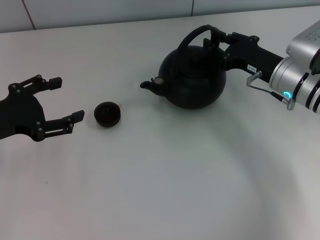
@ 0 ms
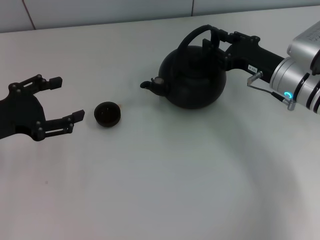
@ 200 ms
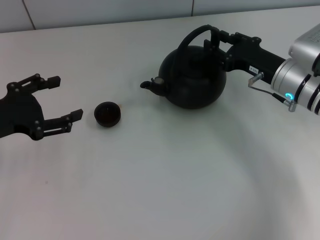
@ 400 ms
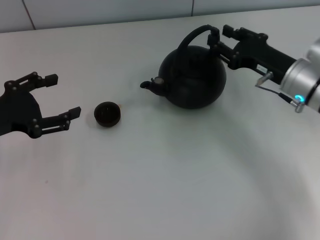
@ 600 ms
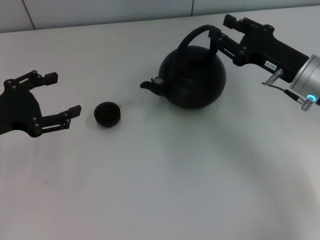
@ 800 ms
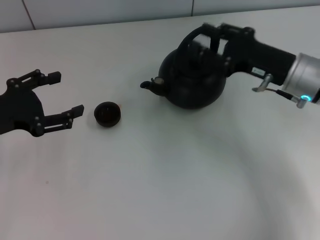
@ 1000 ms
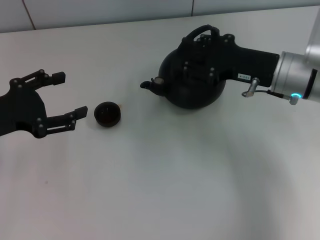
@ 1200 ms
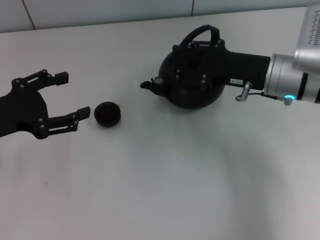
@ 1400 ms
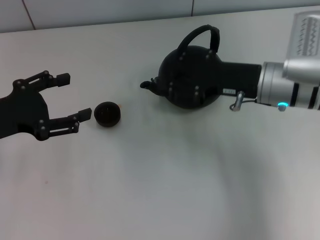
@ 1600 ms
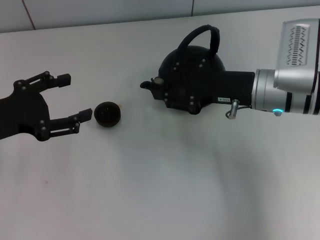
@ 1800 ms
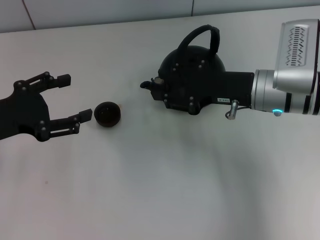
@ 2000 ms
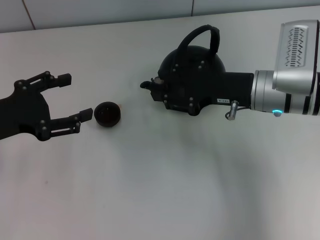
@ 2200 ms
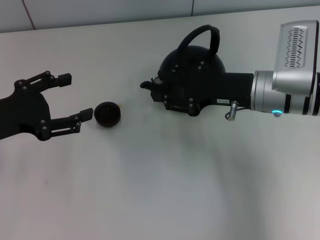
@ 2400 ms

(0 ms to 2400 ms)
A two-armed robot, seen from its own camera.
Task of the whole recording: Grasp the handle of the teapot with one hand and pour tea into the teacup.
0 ms - 1200 ms: The right gripper heads upward, covering roughly 5 cm, and opens.
1200 ms - 2400 ms: There are only small adjustments of the grippers.

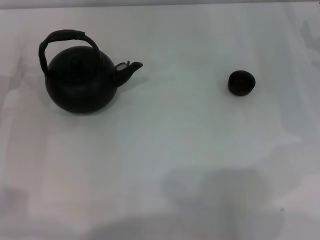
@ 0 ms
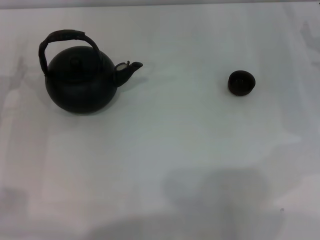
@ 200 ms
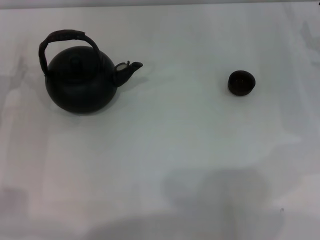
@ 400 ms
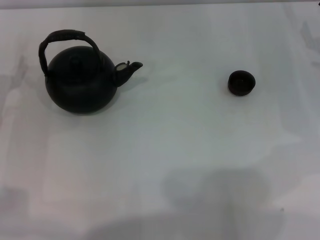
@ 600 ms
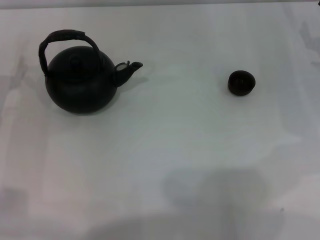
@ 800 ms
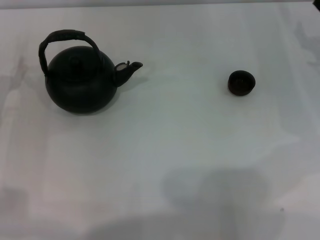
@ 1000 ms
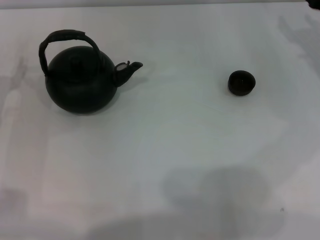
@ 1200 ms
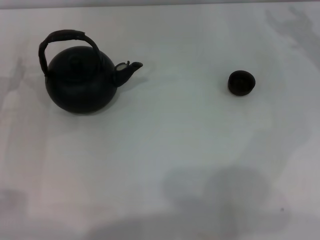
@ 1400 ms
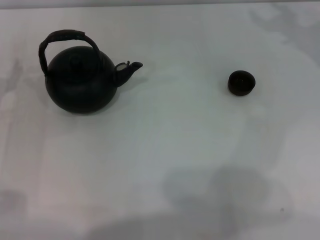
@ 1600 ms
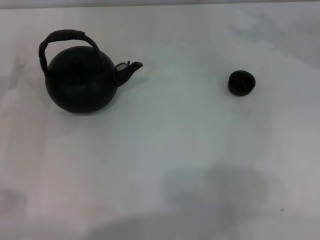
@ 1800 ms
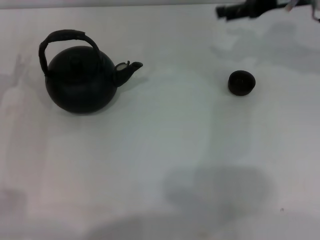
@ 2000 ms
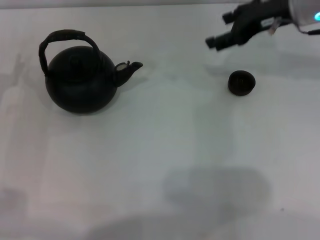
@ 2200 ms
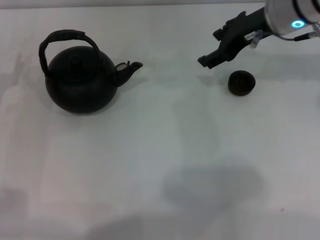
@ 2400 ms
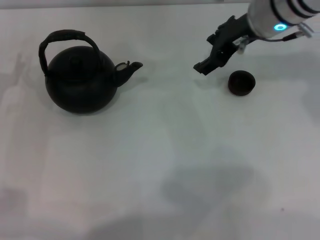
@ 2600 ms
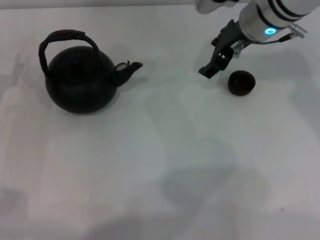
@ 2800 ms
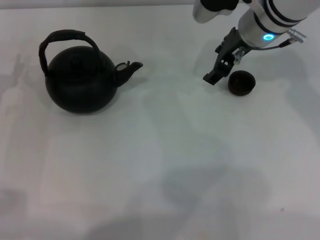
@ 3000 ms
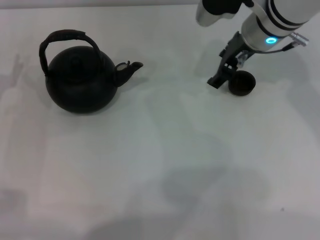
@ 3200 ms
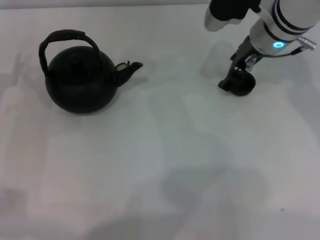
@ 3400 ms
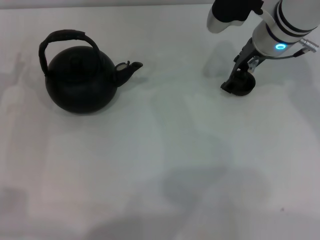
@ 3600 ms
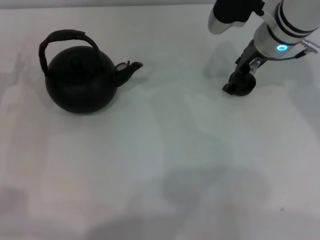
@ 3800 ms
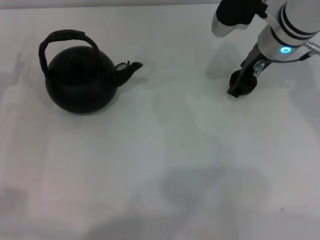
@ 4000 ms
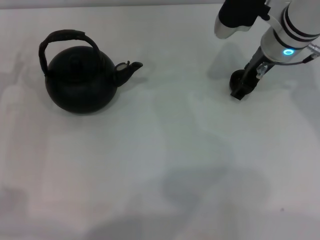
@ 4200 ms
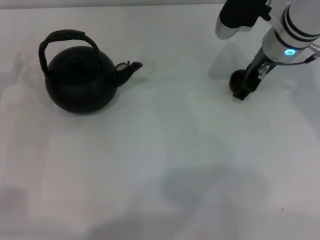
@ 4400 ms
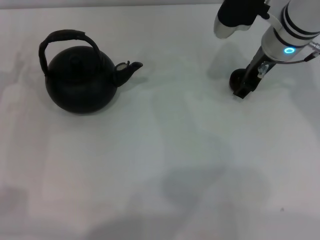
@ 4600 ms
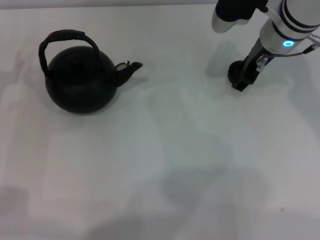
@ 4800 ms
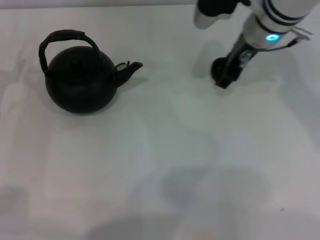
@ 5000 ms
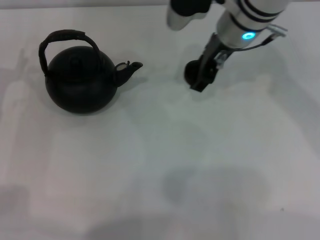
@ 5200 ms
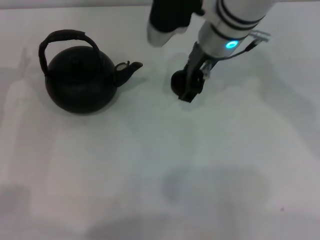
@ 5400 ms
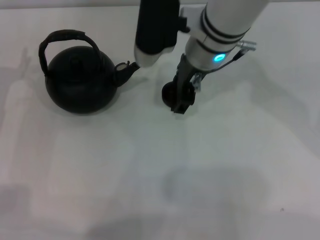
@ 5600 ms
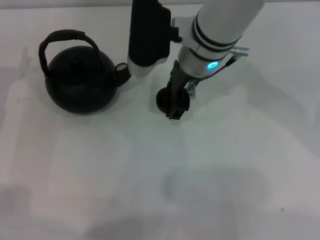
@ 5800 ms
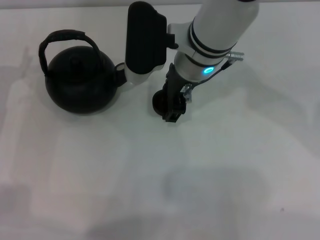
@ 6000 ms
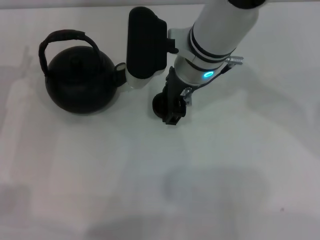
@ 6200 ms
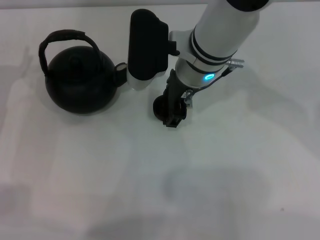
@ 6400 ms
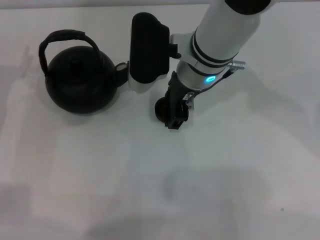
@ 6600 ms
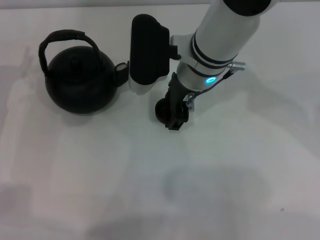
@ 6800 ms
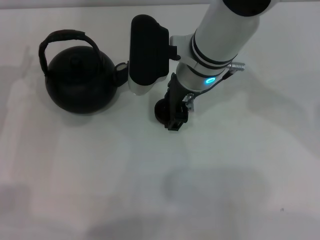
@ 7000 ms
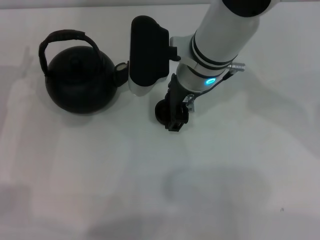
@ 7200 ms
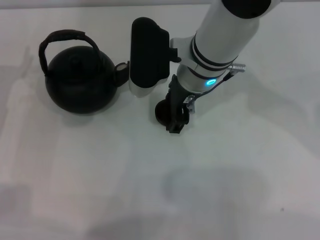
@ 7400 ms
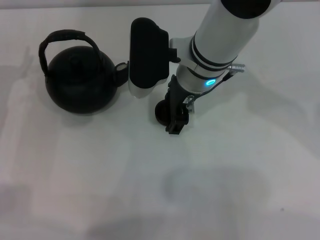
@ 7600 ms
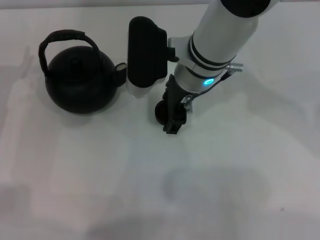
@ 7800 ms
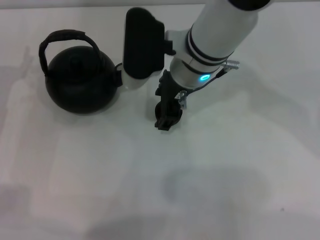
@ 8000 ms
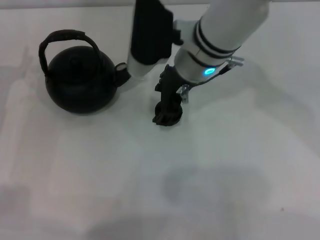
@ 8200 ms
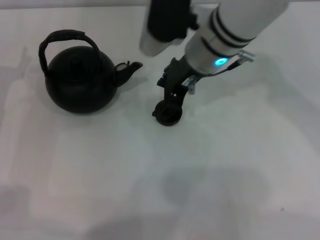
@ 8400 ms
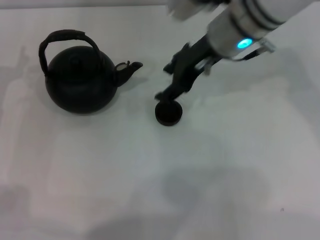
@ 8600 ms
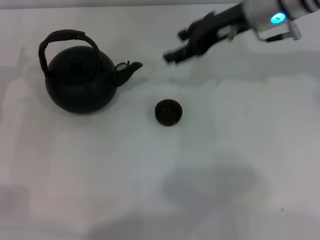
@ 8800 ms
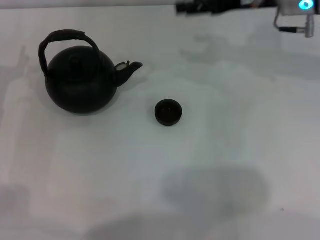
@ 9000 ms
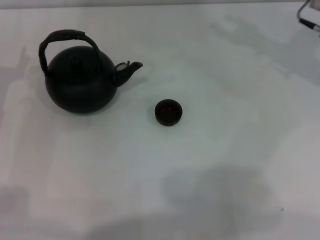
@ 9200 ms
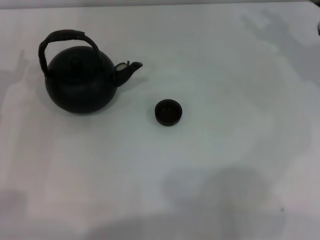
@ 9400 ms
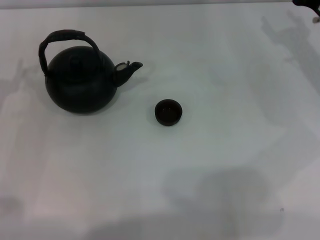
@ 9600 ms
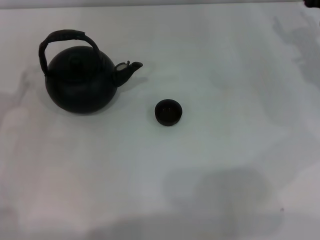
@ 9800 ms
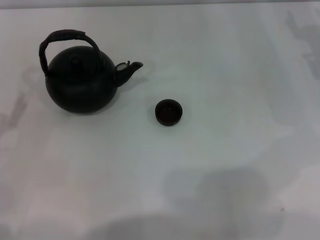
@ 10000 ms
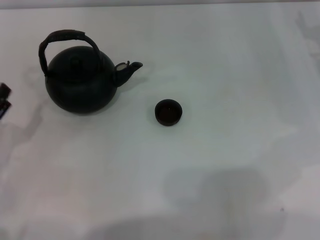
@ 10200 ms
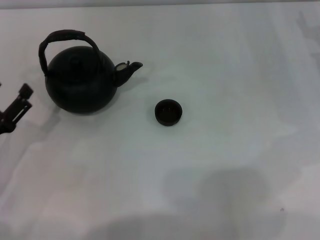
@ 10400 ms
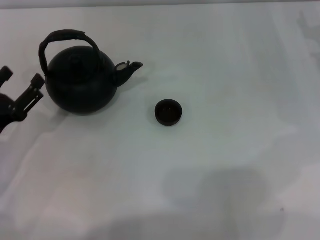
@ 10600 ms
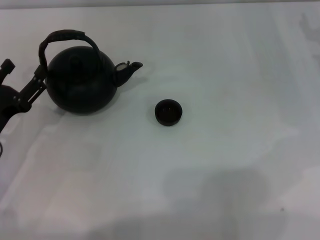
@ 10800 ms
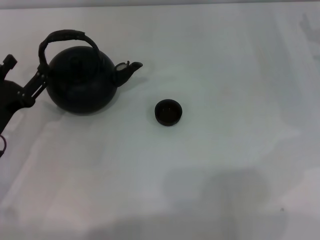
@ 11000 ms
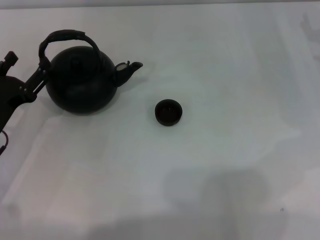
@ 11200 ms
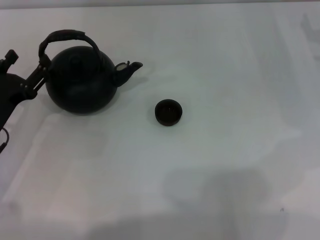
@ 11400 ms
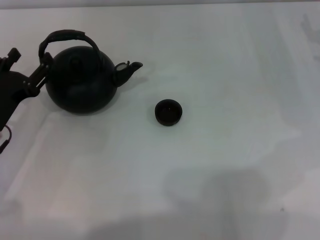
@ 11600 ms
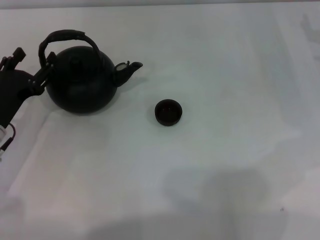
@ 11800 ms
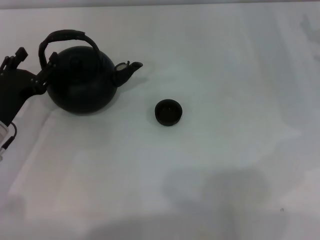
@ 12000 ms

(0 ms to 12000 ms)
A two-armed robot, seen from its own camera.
Task of the whole recording: Grasp the handle of the teapot with one hand and pour tea into the teacup.
Step, 0 ms - 5000 ms: Pick up the teacup with the right gripper.
Step, 5200 ms - 8000 ms: Place the teacup in the center of view with the right gripper.
1600 ms - 3000 ms: The right gripper travels to the left by roughly 15 cm.
3000 ms - 4400 ms: There are only small adjustments of the grippers.
4400 ms - 6000 ms: The right gripper is displaced to the left by roughly 15 cm.
6000 ms - 7600 ms: The grippers move only a little.
7600 ms - 9000 ms: The right gripper goes approximately 15 cm to the right.
9000 ms - 10400 ms: The left gripper goes approximately 10 cm backward. Meanwhile the right gripper is displaced to the right and downward by about 15 cm.
10400 ms - 12000 ms: The left gripper goes some 5 cm forward.

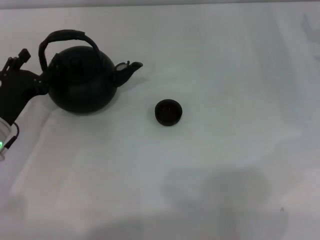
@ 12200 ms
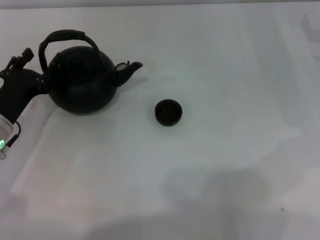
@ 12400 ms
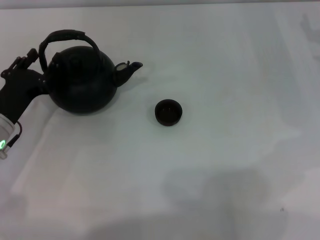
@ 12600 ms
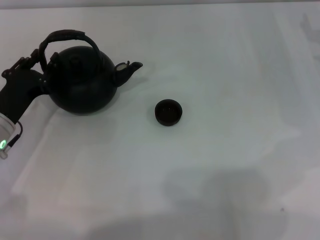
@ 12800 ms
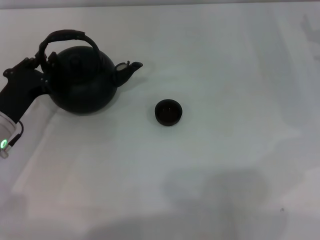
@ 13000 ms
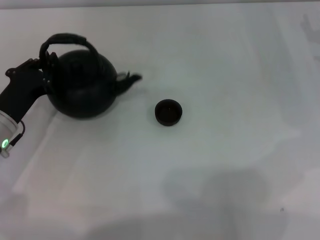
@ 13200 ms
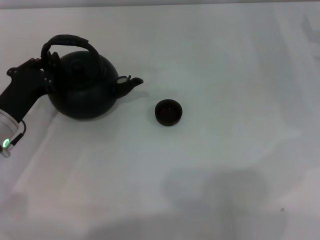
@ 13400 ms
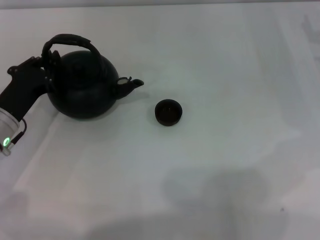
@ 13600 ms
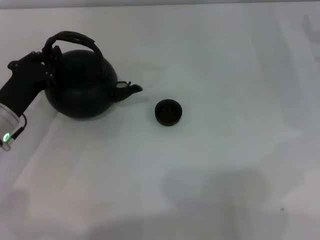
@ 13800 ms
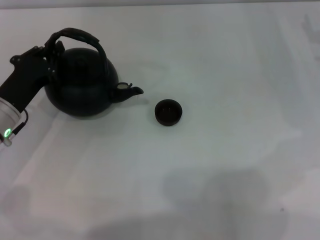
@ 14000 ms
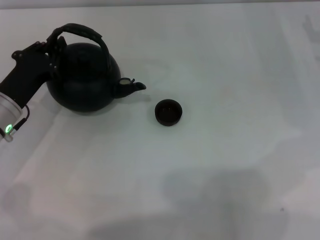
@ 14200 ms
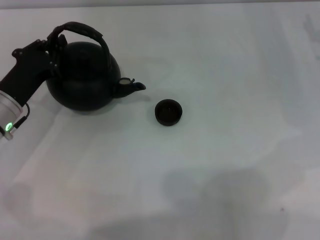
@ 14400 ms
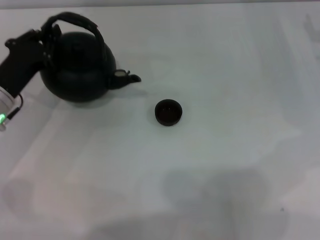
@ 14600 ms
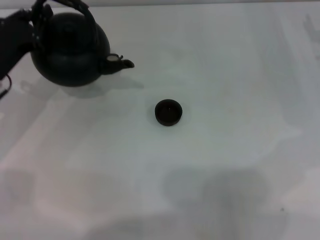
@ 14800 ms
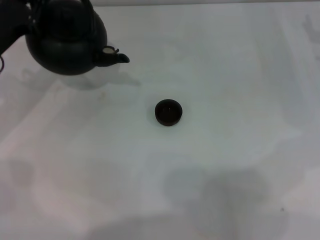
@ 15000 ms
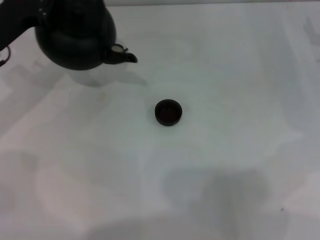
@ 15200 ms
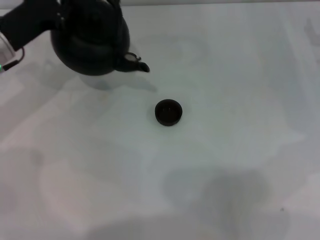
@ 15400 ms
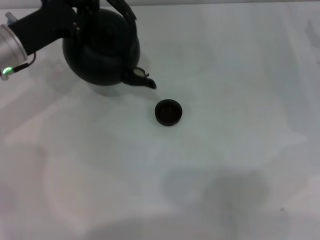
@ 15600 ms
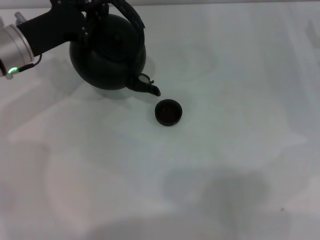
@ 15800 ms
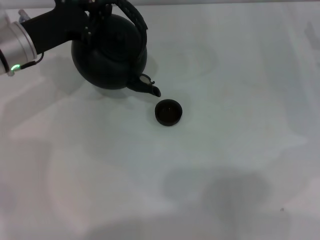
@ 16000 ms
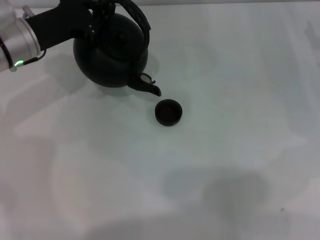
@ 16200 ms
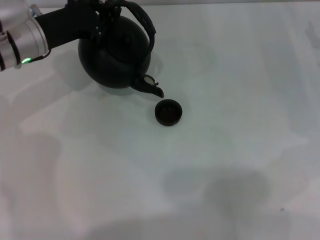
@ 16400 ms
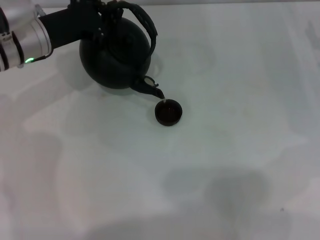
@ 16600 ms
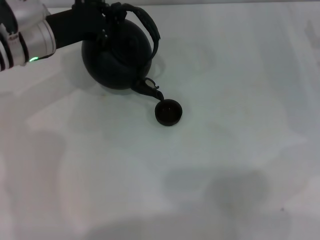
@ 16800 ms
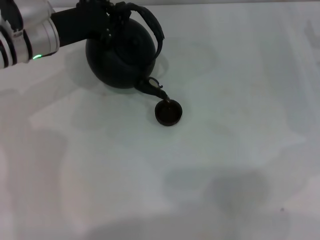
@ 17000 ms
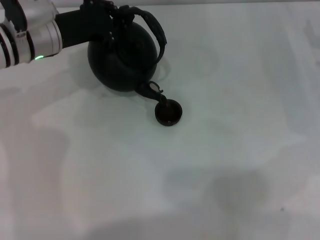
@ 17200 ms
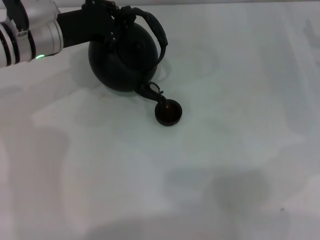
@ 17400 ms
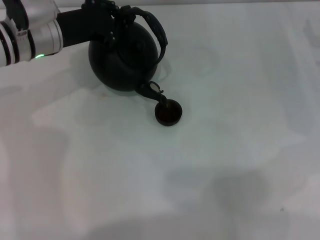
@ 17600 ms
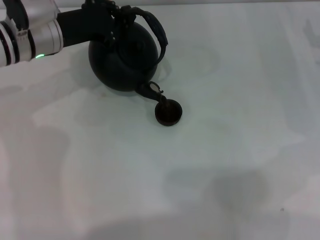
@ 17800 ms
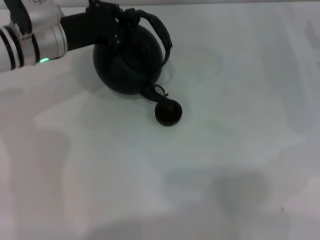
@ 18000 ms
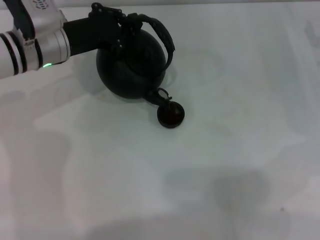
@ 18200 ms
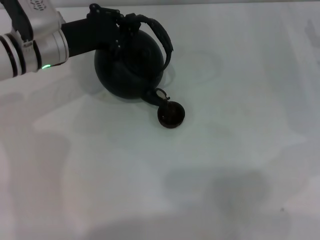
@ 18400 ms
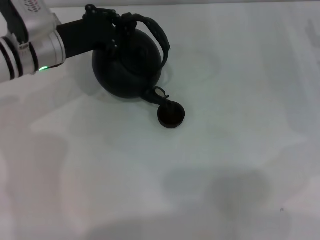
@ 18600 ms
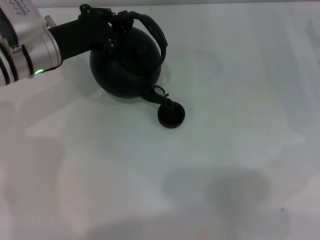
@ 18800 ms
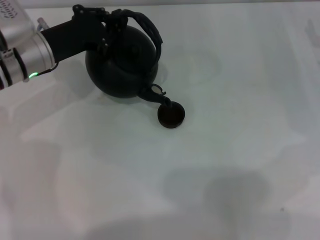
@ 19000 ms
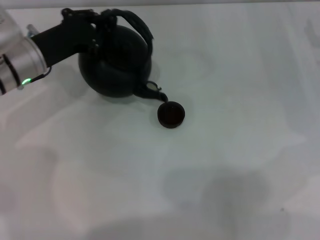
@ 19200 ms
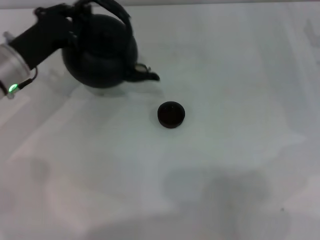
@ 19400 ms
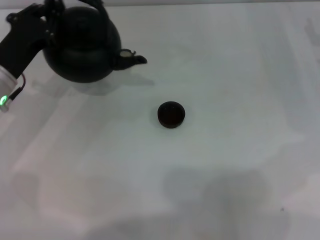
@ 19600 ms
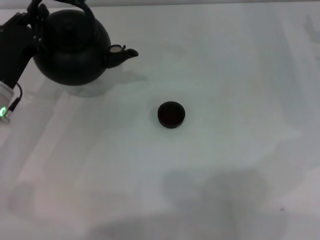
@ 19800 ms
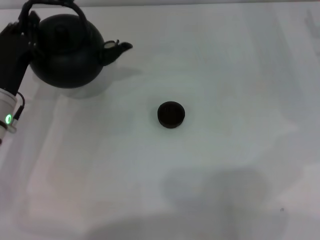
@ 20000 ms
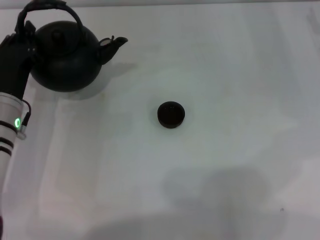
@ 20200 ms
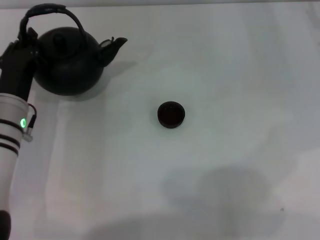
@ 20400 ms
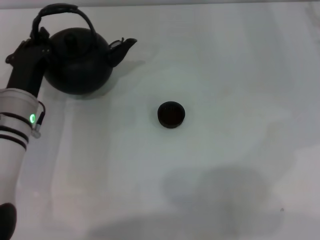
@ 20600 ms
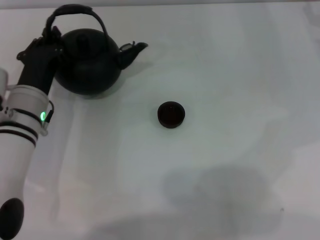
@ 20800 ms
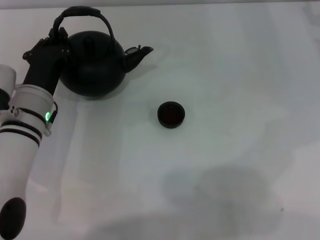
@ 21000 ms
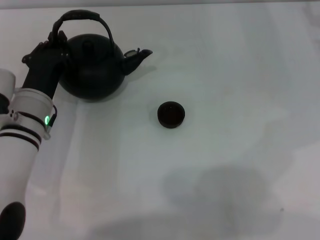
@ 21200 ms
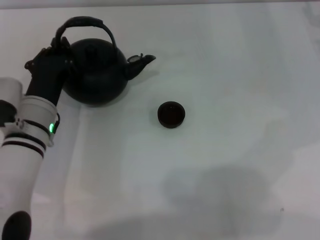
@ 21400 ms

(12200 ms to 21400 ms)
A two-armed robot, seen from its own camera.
Task of the whole recording: Grasp the handle of the teapot with one hand and pour tea into the teacup.
Step, 12200 ms - 14400 ms: Pick up the teapot with the left gripper.
Step, 14600 ms - 19200 ms: Pour tea into the teacup with the left gripper.
12200 ms - 13800 ms: The left gripper closes up.
13800 ms - 15200 ms: The left gripper is displaced forward and upward by some 10 cm.
15200 ms - 16800 ms: The left gripper shifts roughly 5 cm to the right.
16800 ms - 18400 ms: There are only small adjustments of the grippers.
18400 ms - 19800 ms: The left gripper goes about 10 cm backward and to the left.
19800 ms - 21400 ms: The left gripper shifts about 5 cm to the right.
